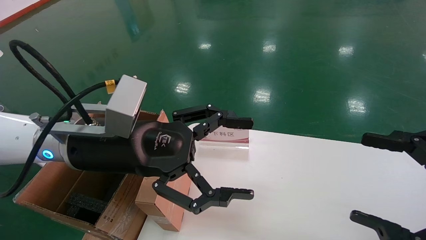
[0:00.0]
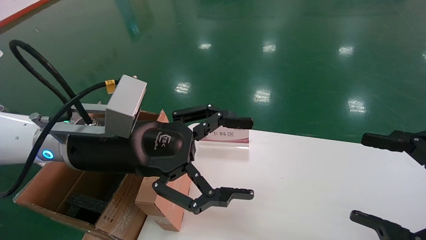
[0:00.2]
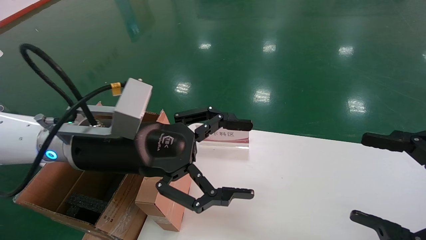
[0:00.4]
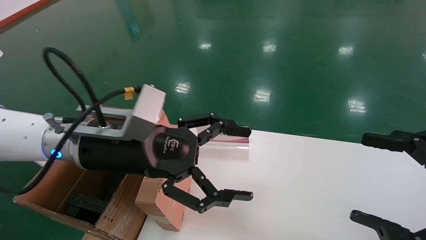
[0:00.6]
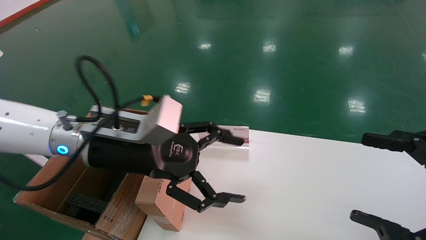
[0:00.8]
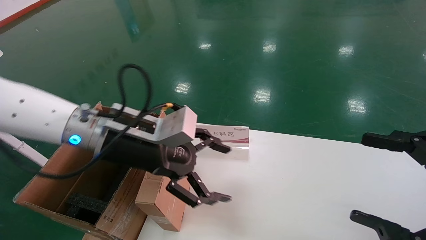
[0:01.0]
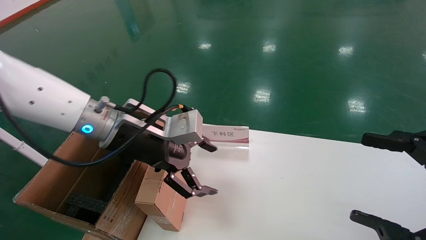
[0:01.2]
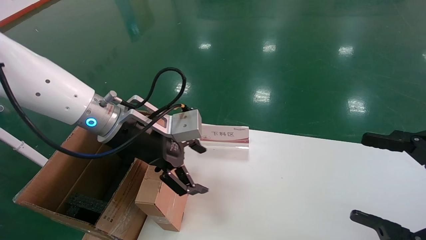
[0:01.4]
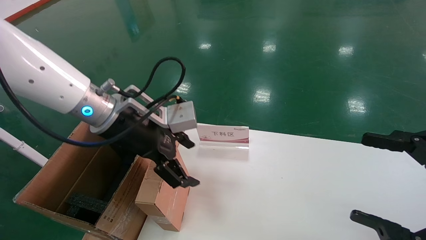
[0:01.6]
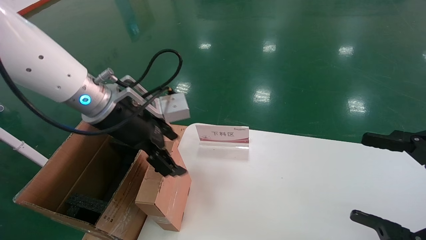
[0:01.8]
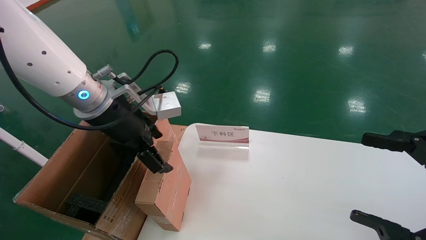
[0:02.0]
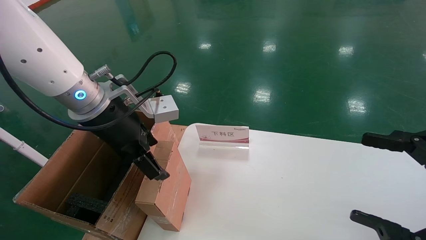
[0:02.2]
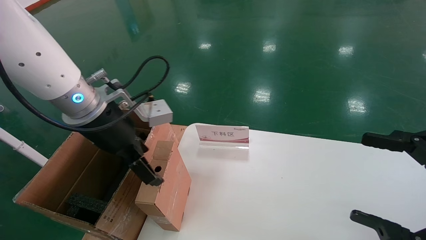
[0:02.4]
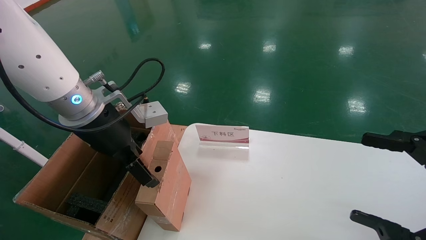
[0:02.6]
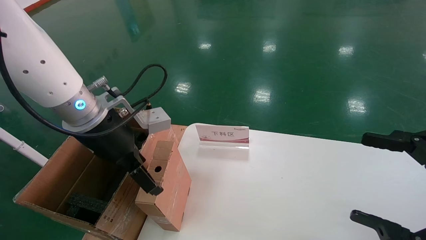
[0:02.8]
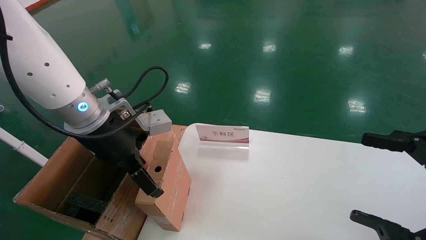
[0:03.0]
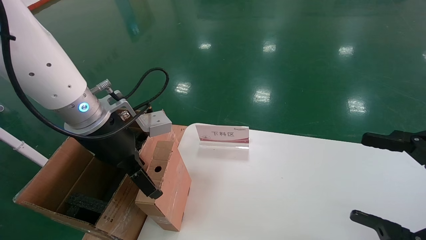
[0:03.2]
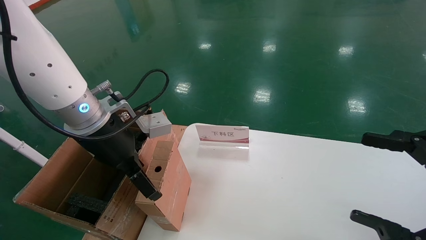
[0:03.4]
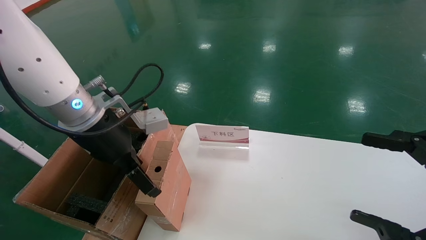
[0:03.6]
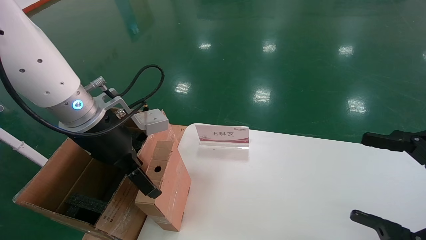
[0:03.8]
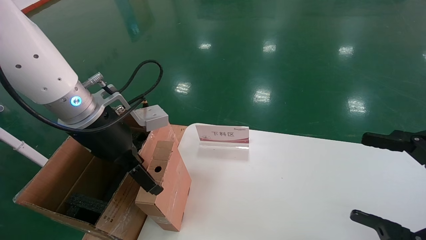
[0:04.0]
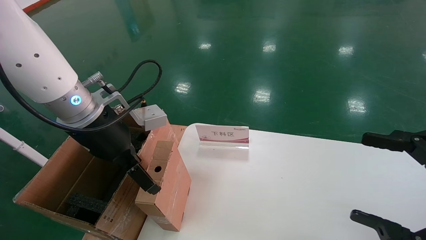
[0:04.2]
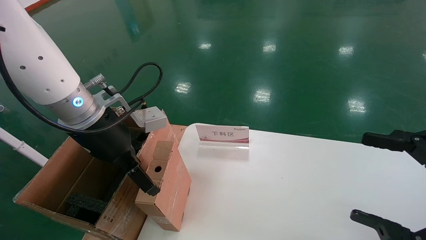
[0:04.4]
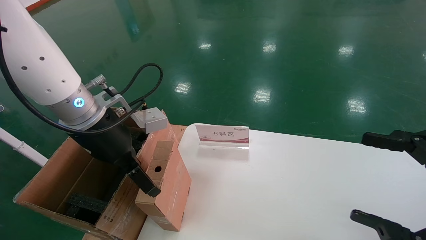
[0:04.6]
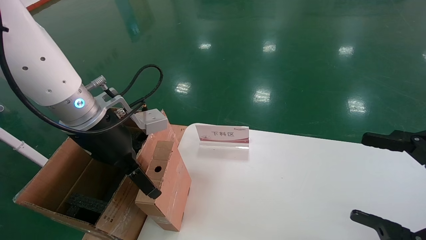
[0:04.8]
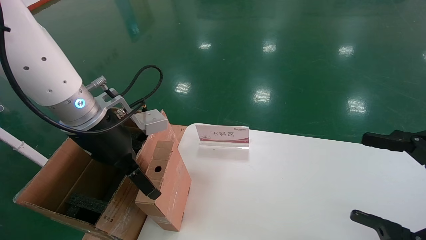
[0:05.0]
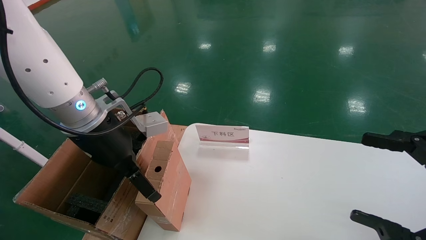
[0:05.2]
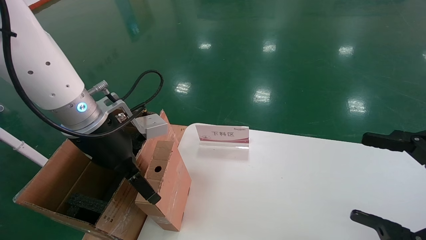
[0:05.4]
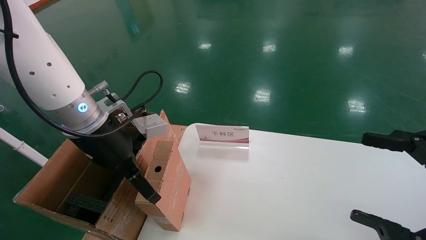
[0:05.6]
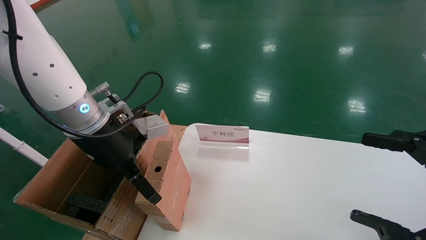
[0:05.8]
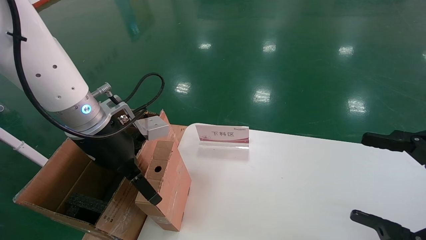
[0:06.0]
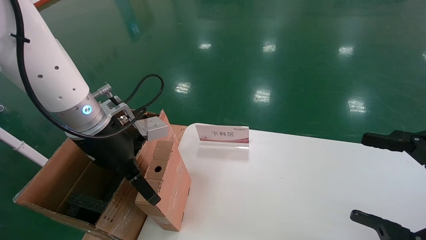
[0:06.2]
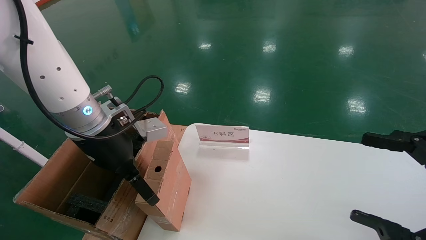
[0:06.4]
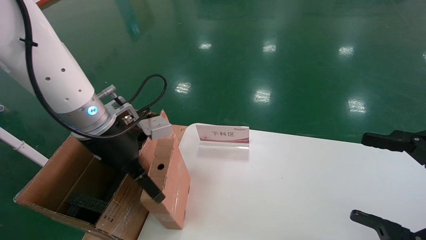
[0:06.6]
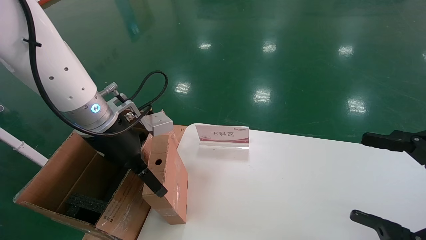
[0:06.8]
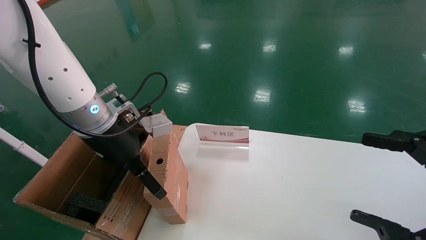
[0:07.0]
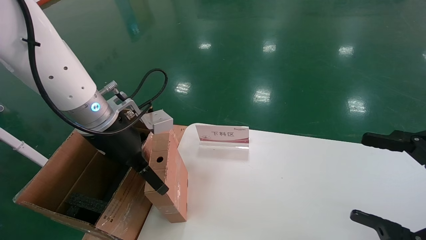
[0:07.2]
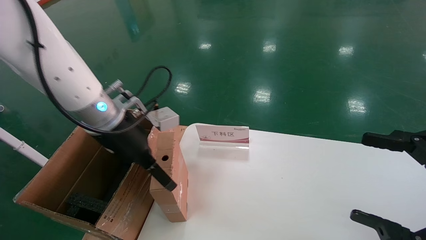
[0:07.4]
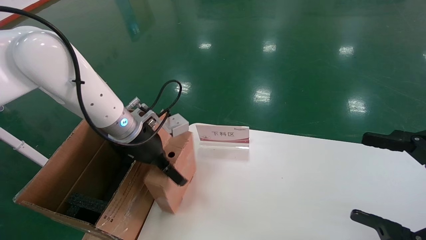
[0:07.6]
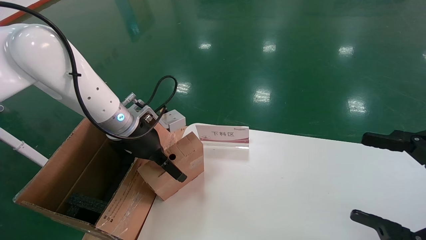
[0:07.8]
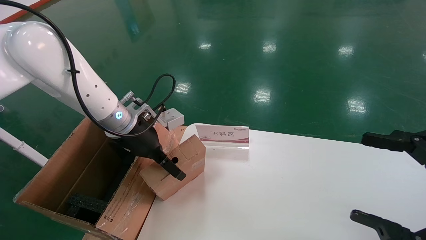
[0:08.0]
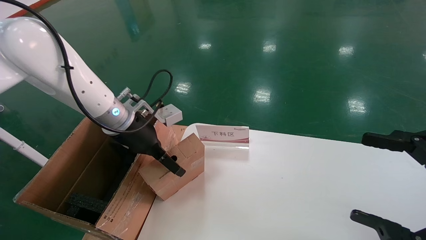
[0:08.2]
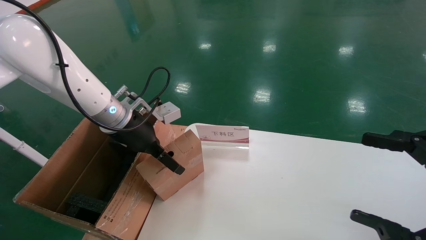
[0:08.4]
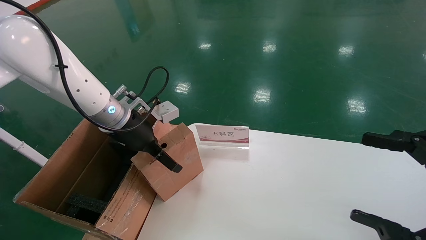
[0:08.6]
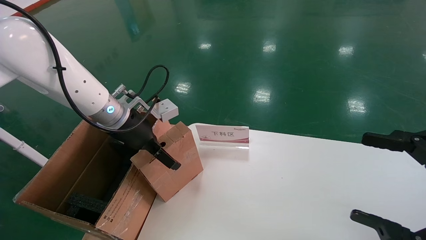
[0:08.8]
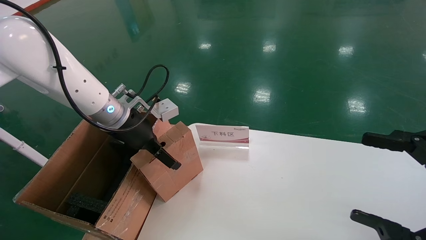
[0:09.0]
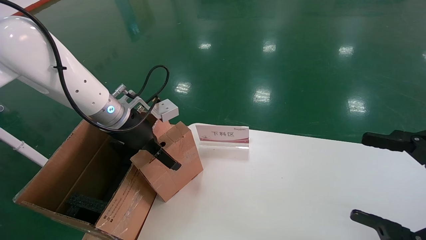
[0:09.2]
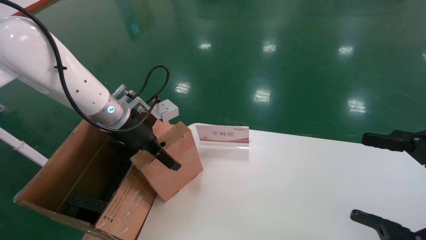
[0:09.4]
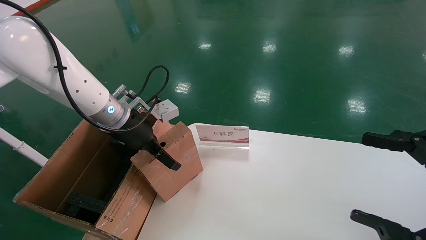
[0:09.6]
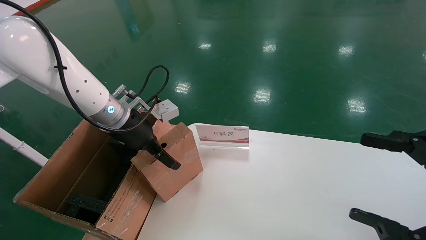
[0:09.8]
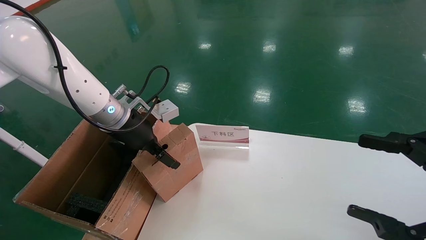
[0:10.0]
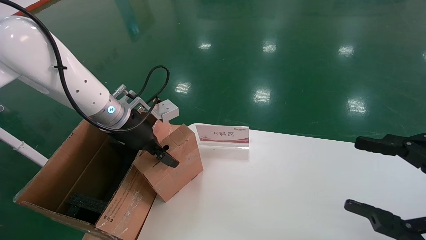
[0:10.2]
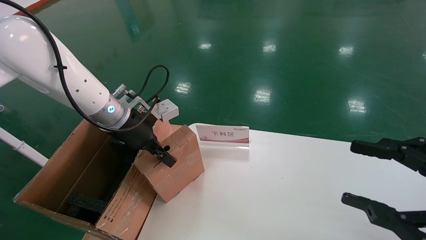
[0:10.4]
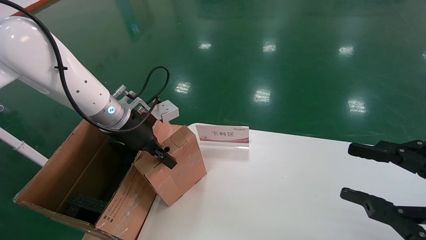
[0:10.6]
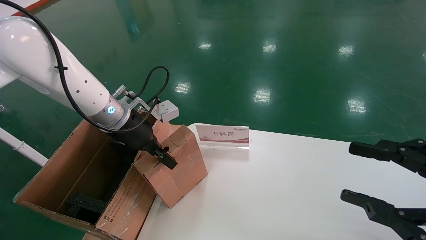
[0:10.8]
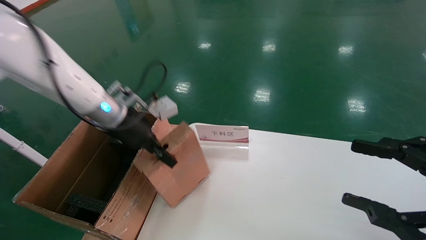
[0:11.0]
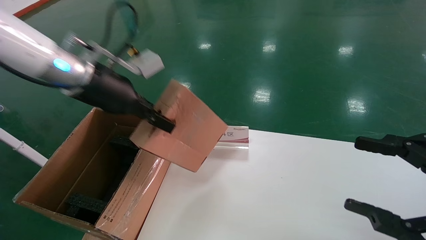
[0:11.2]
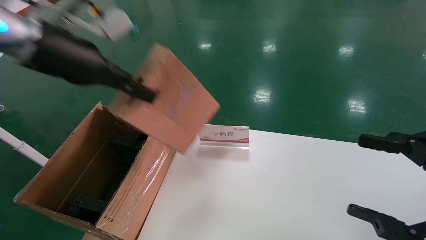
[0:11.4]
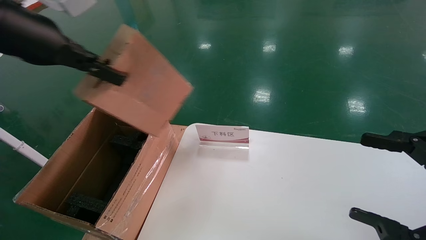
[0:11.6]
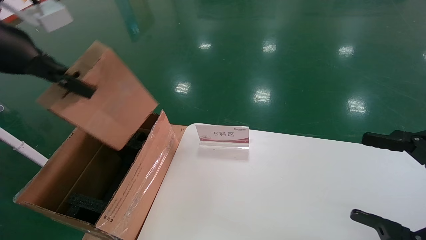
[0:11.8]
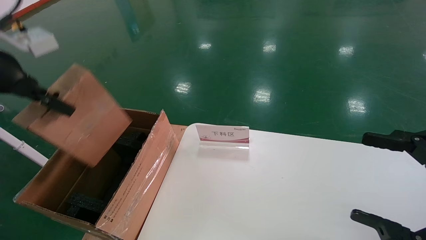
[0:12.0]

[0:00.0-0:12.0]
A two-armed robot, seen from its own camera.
Task of the whole recording: pick up the small cardboard box and load it into the large cardboard box.
Step, 0:01.0 to 0:10.2: Pick up the mouse and power cord box.
0:00.0 to 0:01.6: The left gripper heads forward, covering approximately 5 cm.
0:03.0 to 0:04.4: Neither gripper changes place.
0:04.4 to 0:06.0: There are only small adjustments of the grippers.
0:06.0 to 0:07.6: The left gripper moves forward and downward, about 10 cm.
0:07.6 to 0:09.0: The grippers make only small movements.
0:09.0 to 0:10.4: The right gripper closes its fingers. Meanwhile the left gripper closes its fingers.
0:10.4 to 0:12.0: The right gripper opens its fingers; the left gripper moves to the left, upward and backward, roughly 25 cm, and closes its fingers.

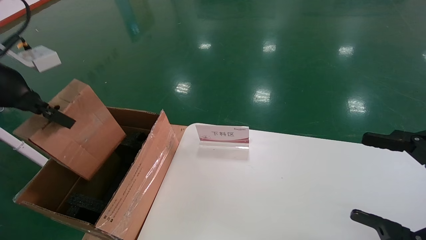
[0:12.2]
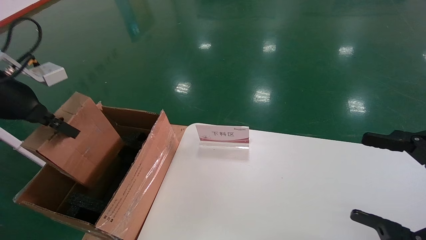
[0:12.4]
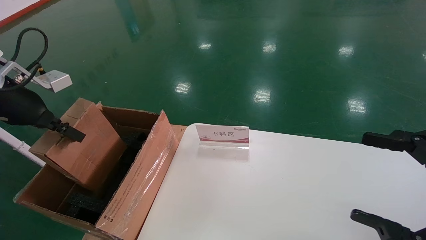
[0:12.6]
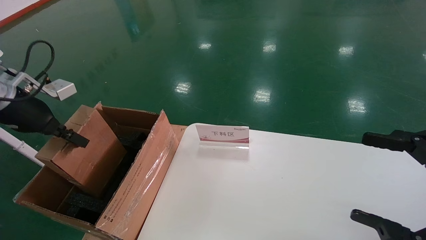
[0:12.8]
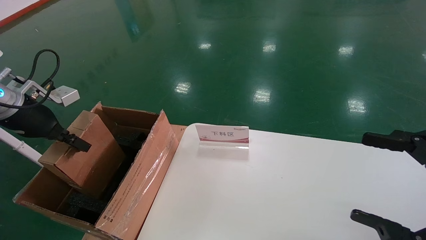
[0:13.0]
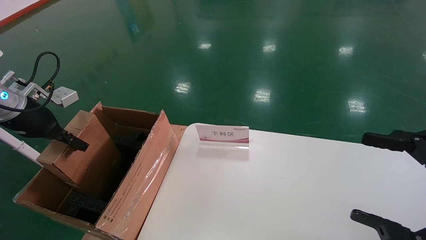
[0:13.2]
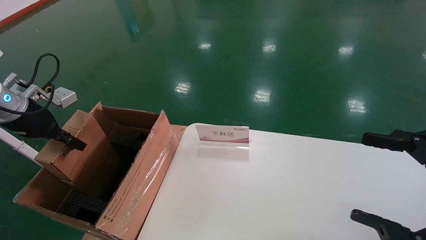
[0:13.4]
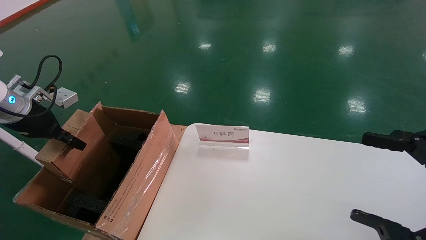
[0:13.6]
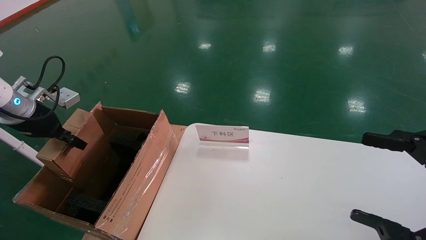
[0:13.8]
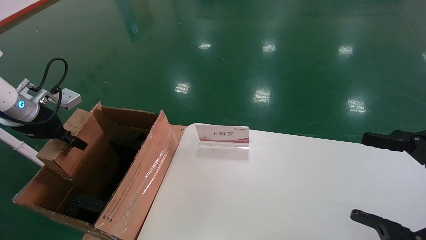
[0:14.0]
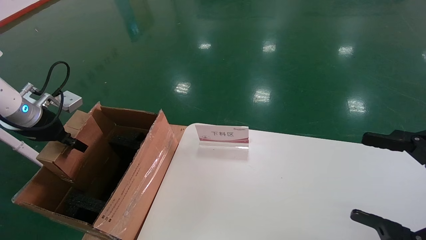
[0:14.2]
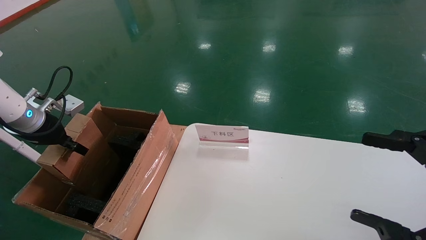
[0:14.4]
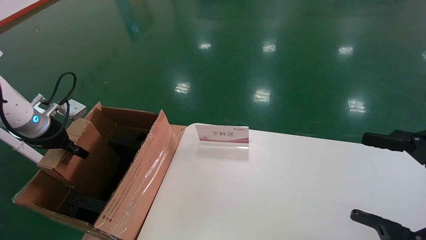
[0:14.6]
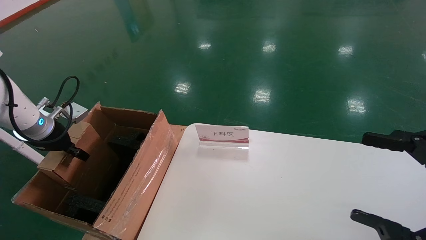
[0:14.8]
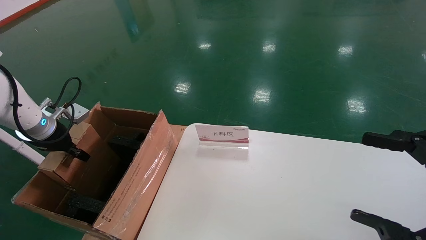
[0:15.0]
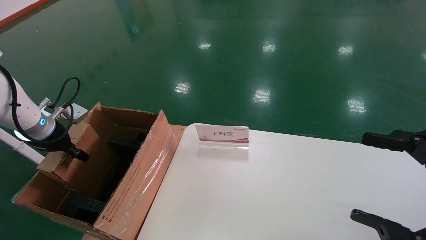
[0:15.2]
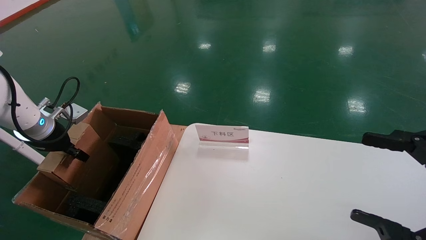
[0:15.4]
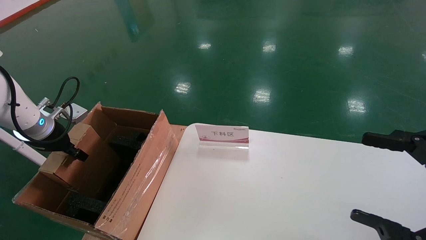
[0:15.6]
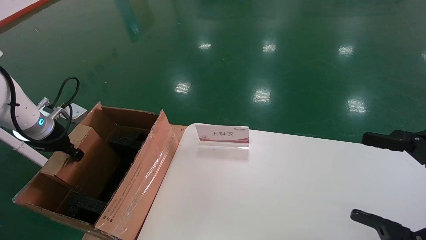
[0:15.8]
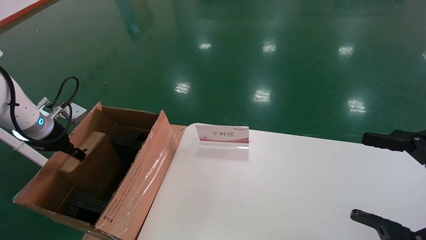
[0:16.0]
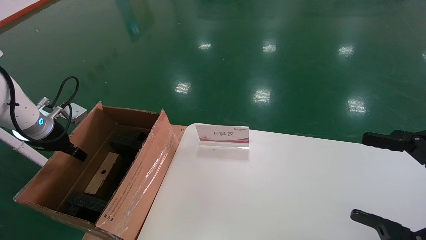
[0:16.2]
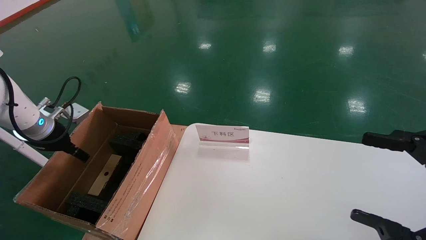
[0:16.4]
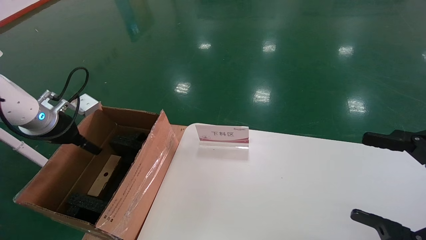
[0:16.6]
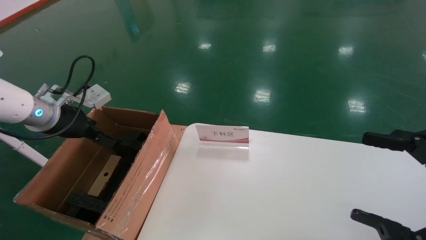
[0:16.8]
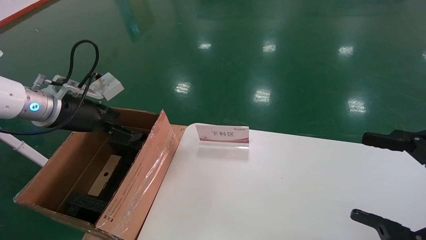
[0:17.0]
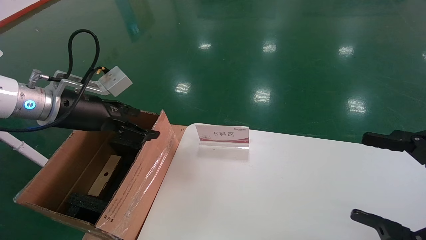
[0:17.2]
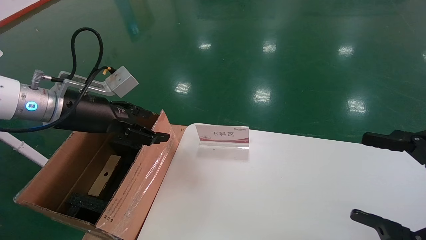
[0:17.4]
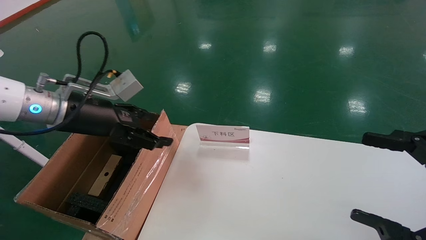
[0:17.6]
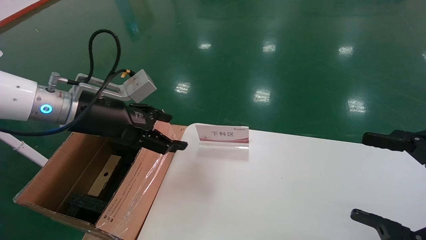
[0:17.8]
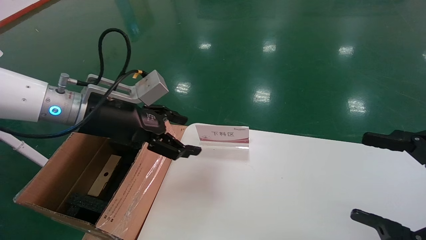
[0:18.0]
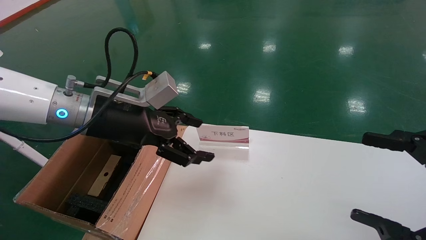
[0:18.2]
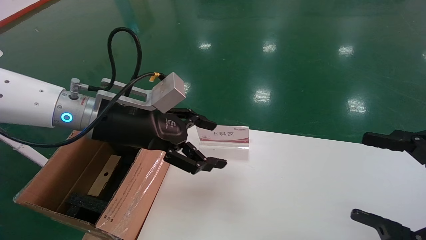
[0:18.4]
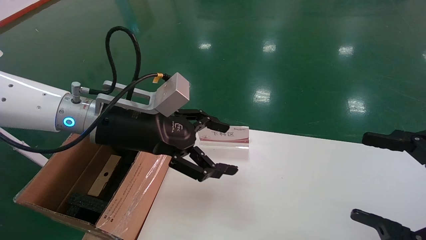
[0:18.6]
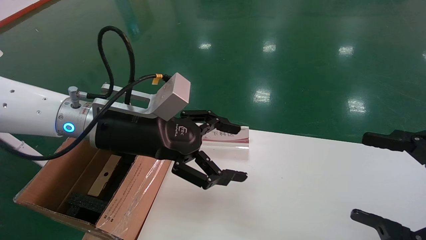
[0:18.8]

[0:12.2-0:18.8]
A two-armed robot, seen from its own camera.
Task of the whole recording: pick up the small cardboard box and load it into the large cardboard box.
Step, 0:12.2 to 0:16.0: Place the mouse and power cord box into the case.
0:12.2 to 0:13.8: The left gripper goes roughly 10 cm downward and forward.
0:13.8 to 0:15.4: The left gripper shifts by roughly 5 cm.
0:15.4 to 0:17.2: The left gripper moves to the right and upward, some 15 cm, and opens.
0:17.2 to 0:18.8: The left gripper goes about 15 cm to the right.
